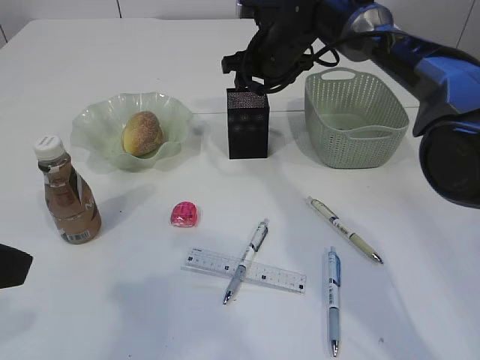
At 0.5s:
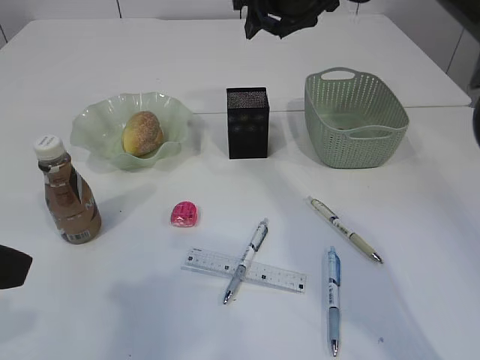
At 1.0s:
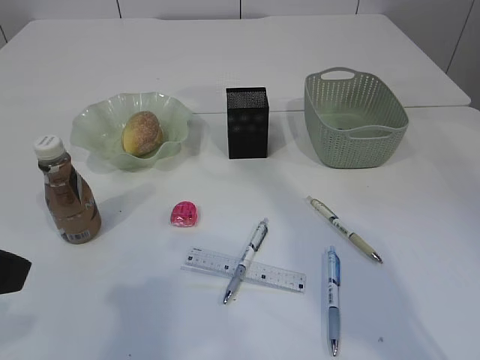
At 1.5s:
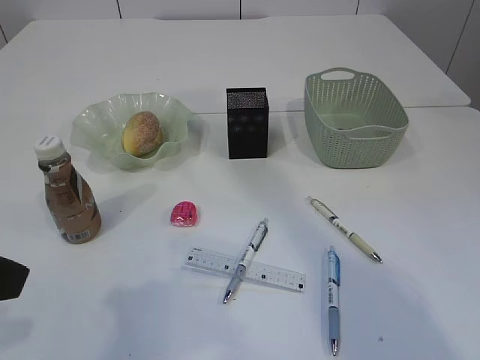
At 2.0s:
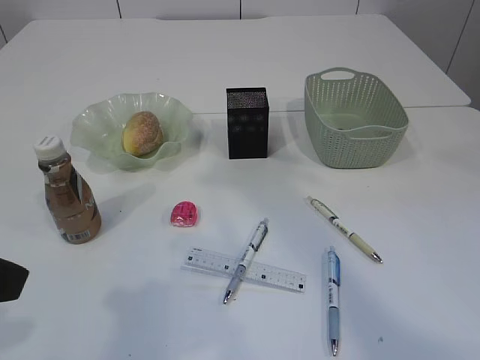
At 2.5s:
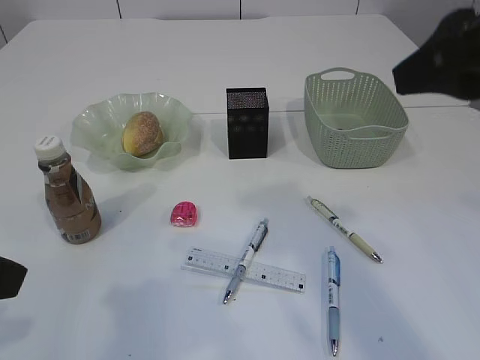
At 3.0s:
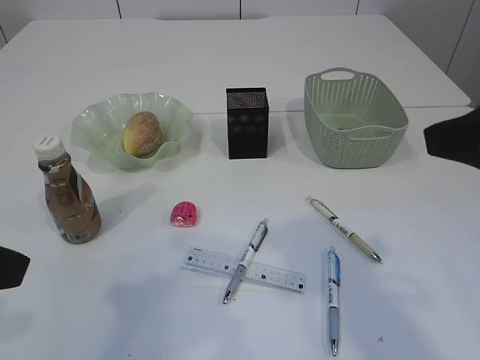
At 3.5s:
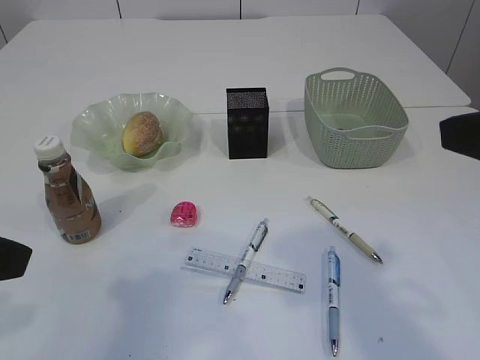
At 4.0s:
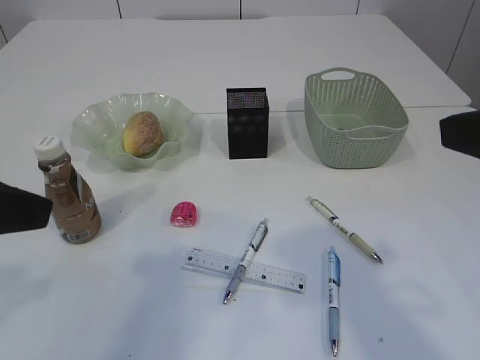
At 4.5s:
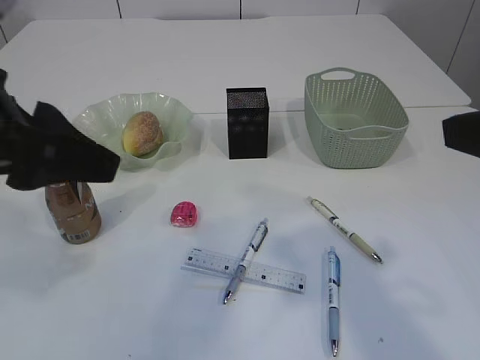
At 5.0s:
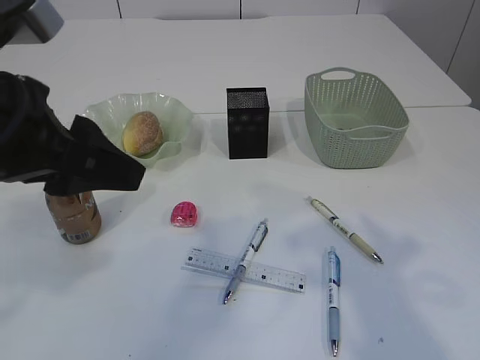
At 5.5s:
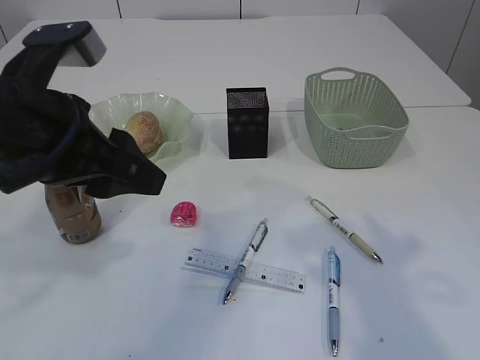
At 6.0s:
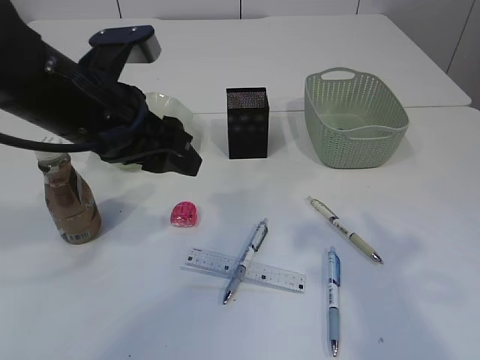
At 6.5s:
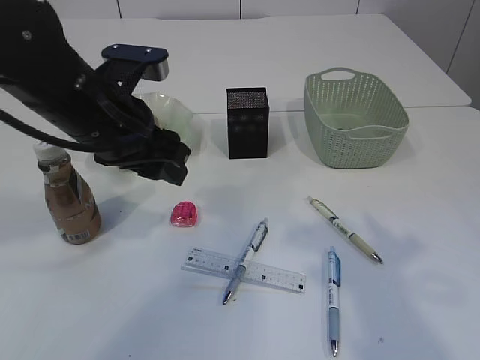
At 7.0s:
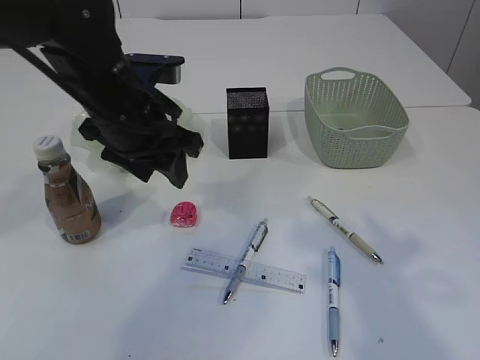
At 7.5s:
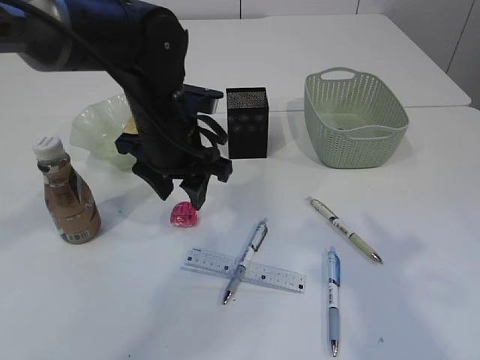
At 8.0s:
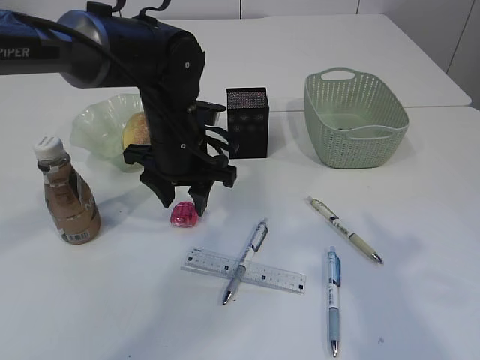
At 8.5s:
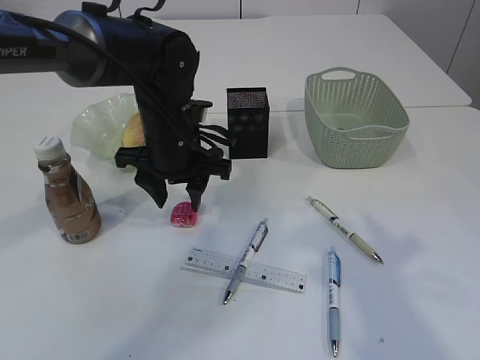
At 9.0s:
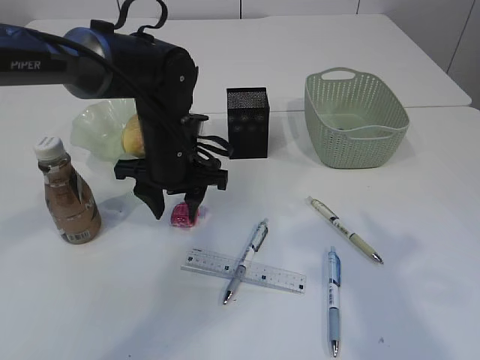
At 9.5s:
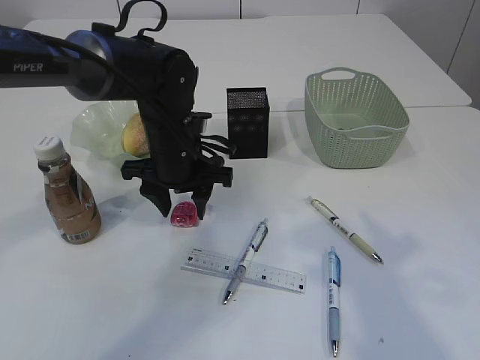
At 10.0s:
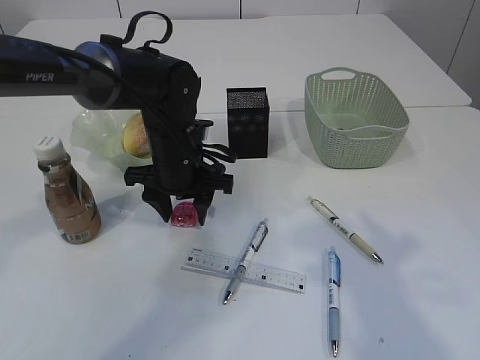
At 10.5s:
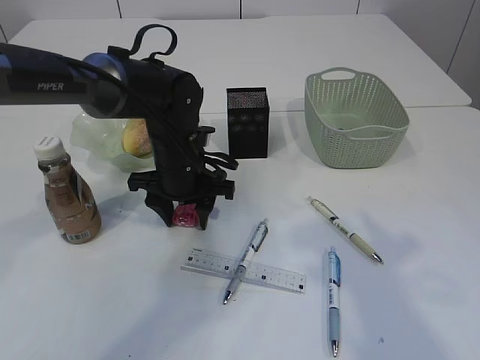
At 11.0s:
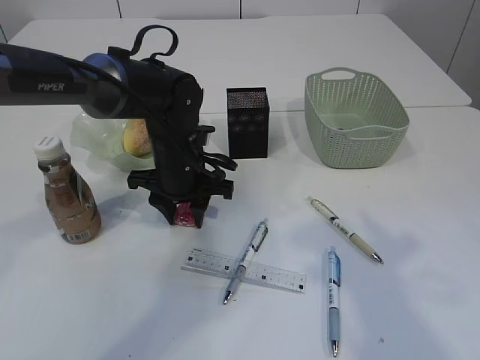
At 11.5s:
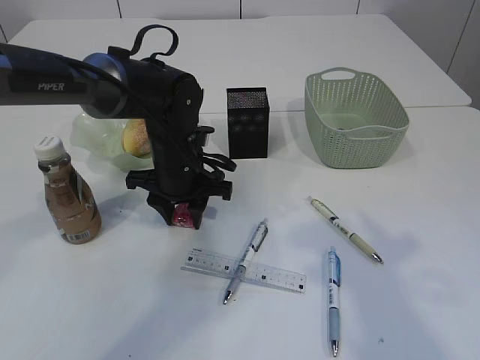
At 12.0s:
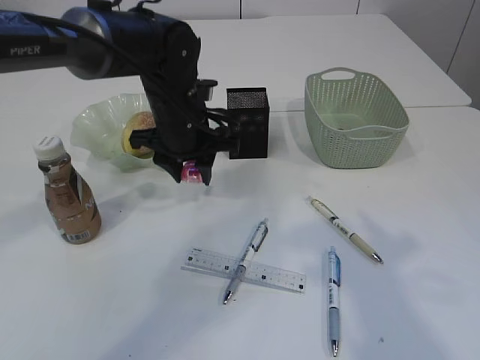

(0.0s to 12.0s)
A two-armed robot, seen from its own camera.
0.0s - 2.0s: The right gripper goes approximately 30 cm backward and upward.
2.0s - 4.0s: The right gripper is displaced backward and downward by some 20 cm.
4.0s - 6.0s: The left gripper goes about 15 cm forward and to the right.
6.0s - 8.0s: The left gripper moves forward, downward and to the right, about 15 cm.
8.0s - 10.0s: The grippers move only a little.
10.0s - 12.0s: The left gripper ends up roughly 5 cm from where it was.

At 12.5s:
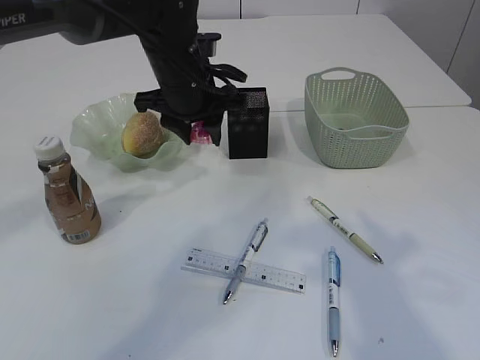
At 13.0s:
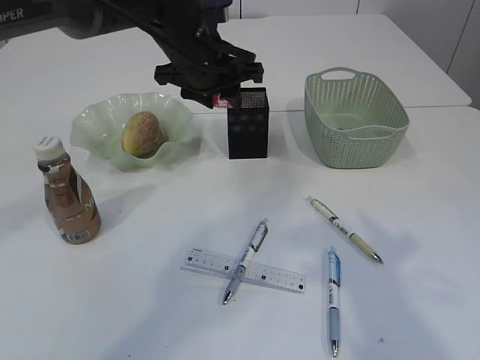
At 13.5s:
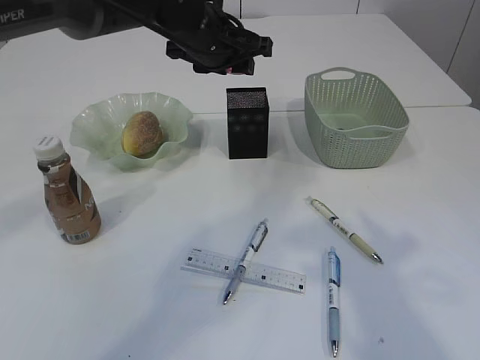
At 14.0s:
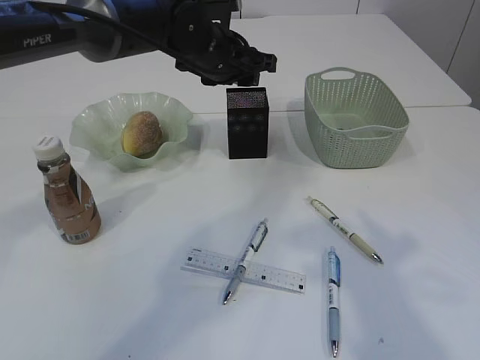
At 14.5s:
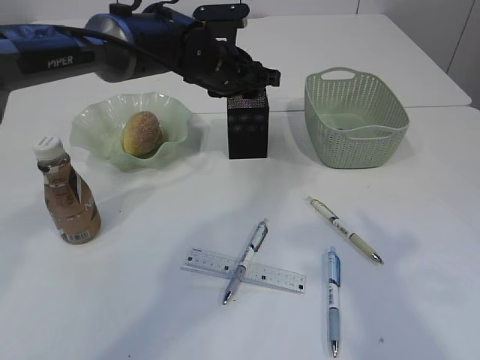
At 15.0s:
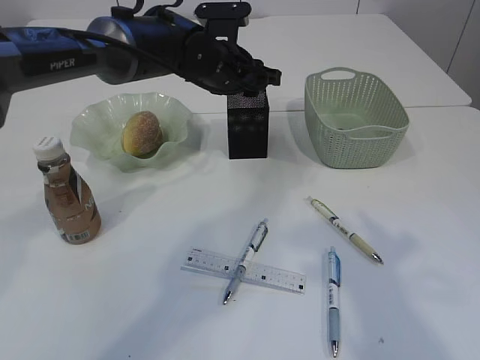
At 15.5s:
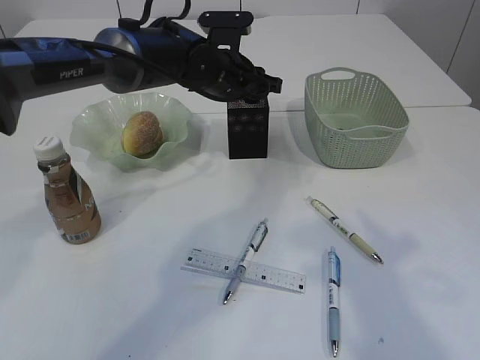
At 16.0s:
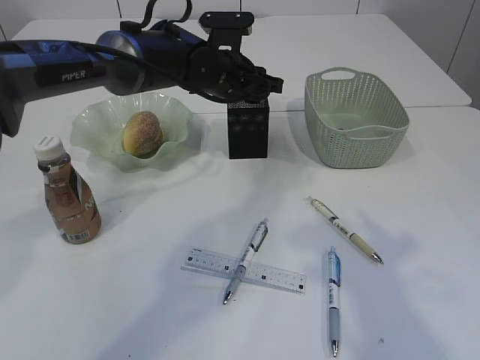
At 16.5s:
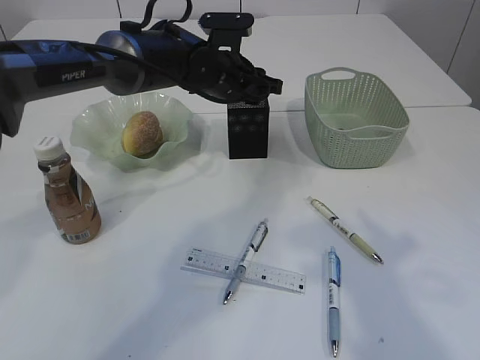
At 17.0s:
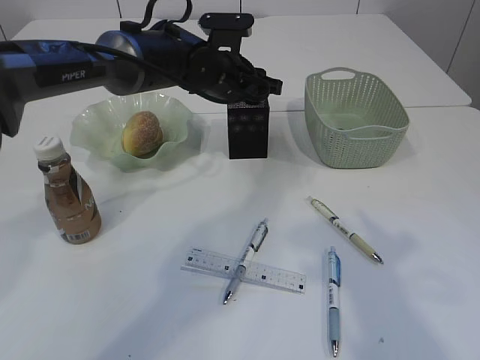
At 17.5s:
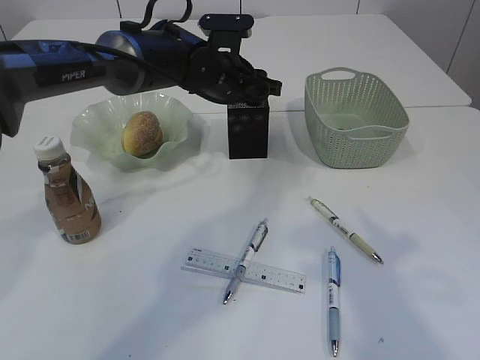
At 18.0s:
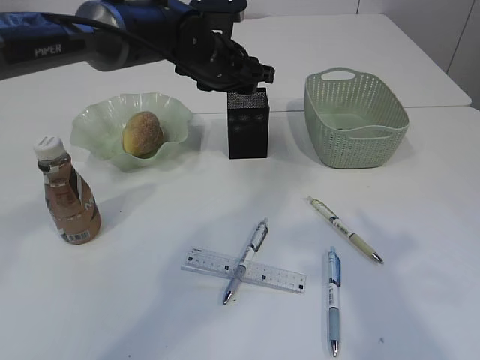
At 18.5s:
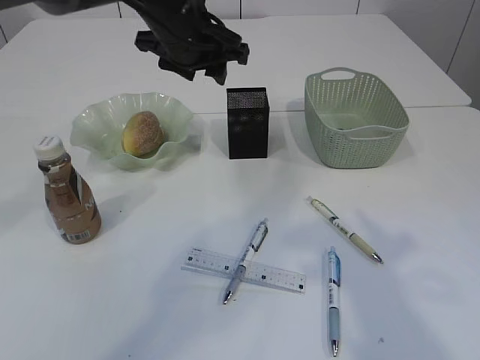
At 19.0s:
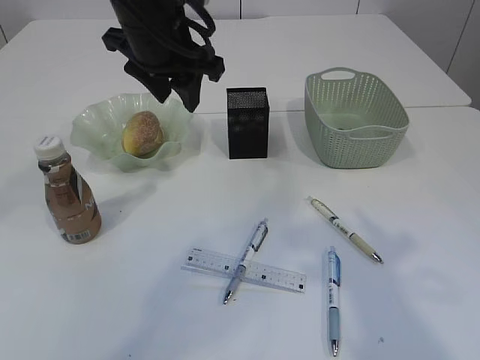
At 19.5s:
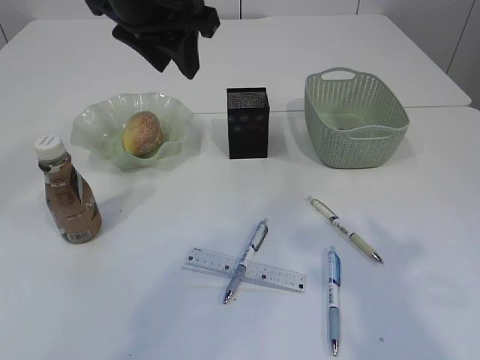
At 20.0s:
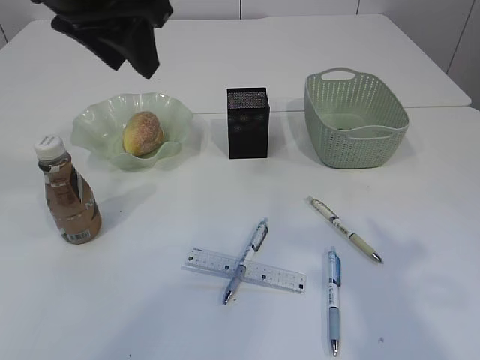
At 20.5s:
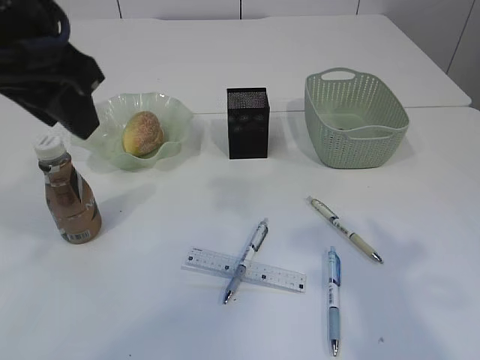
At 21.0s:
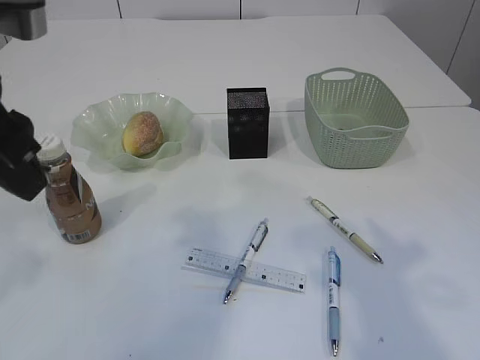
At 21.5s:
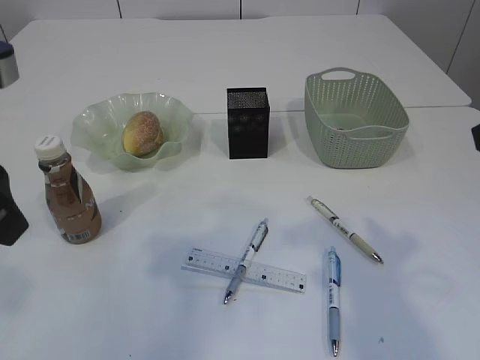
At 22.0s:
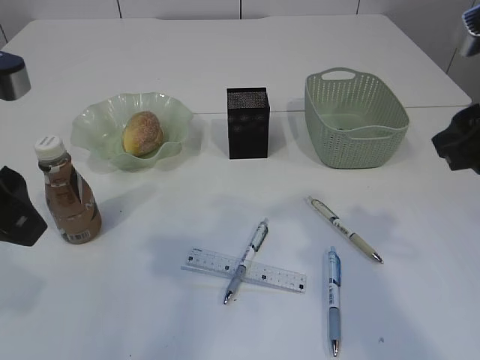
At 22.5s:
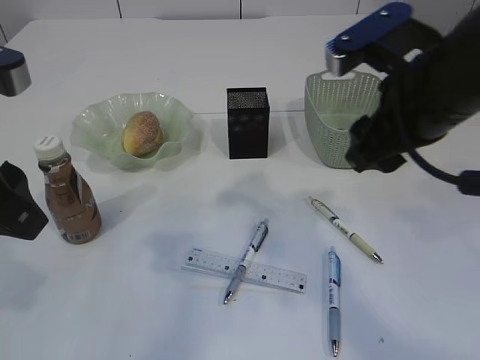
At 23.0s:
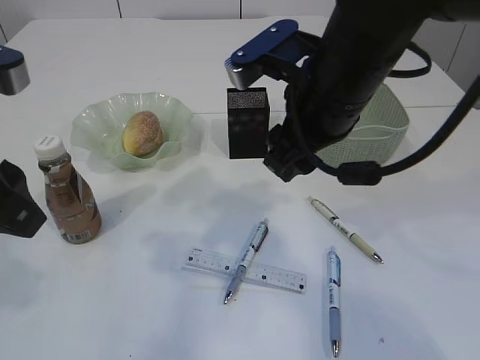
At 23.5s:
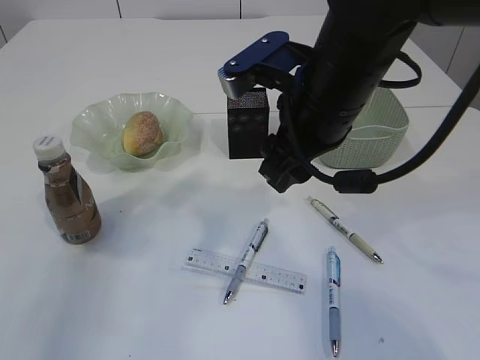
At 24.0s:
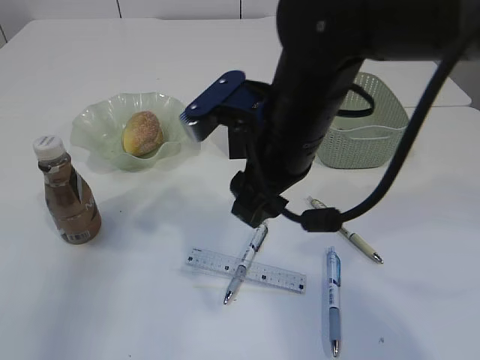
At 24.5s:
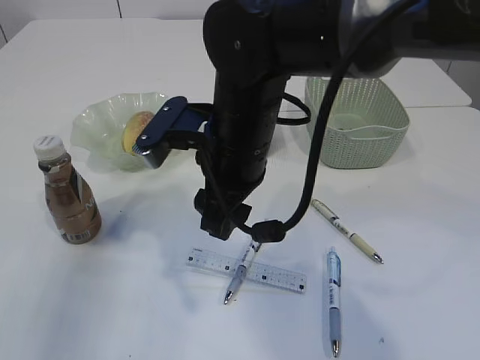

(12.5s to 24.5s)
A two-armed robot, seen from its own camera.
Step, 12.5s - 18.0s: Place the red pencil sharpener into the pen holder.
12.5s - 14.5s: The left gripper moves forward, approximately 5 cm.
14.5s - 16.5s: There are only small adjustments of the grippers.
16.5s - 18.5s: The left gripper is displaced upward by roughly 10 cm.
18.5s - 20.5s: The left gripper shifts some 20 cm backward, to the left and upward.
20.5s - 22.5s: The left gripper moves backward and downward, approximately 10 cm, while the right gripper goes about 15 cm forward and to the left.
22.5s - 24.5s: The right gripper goes roughly 15 cm to the left. Meanwhile the left gripper heads to the left, covering about 10 cm.

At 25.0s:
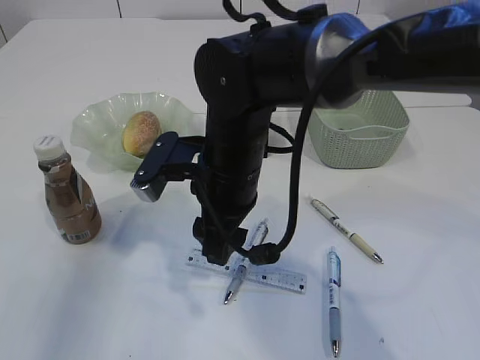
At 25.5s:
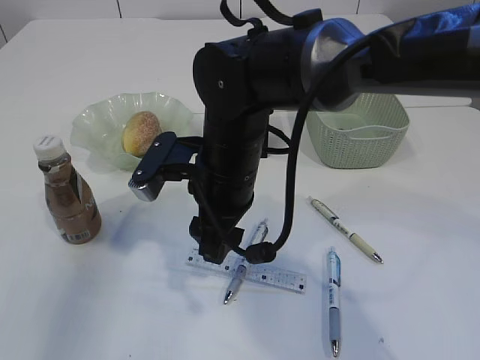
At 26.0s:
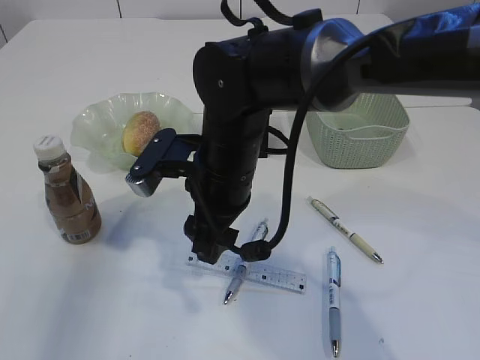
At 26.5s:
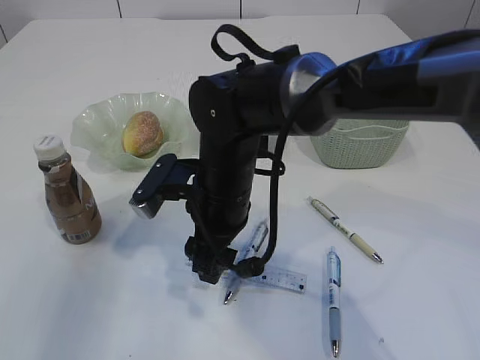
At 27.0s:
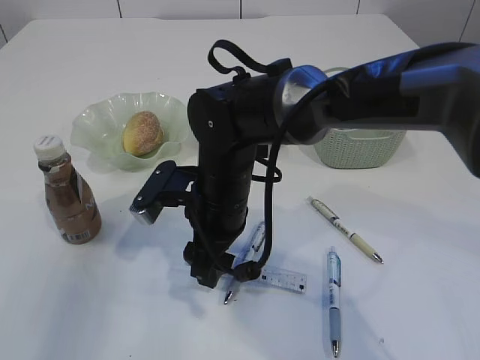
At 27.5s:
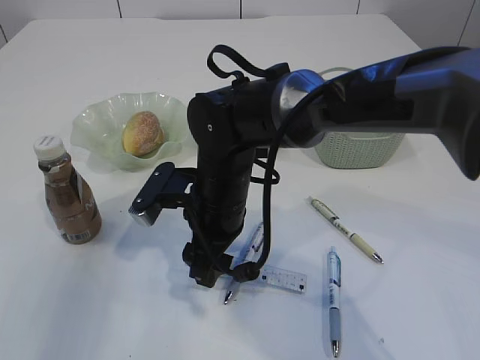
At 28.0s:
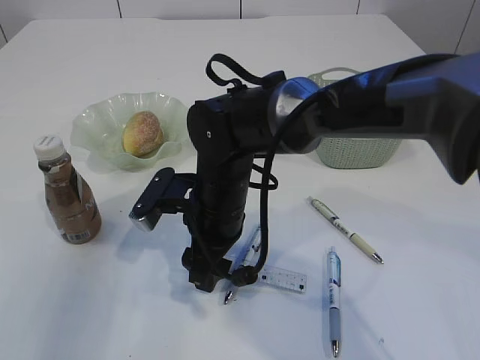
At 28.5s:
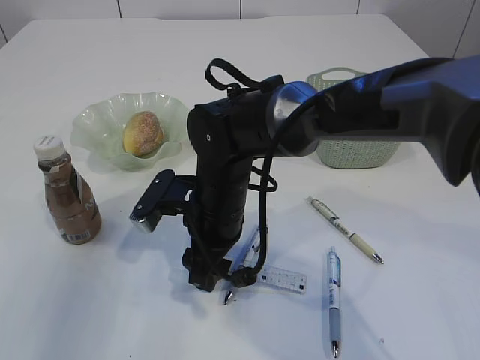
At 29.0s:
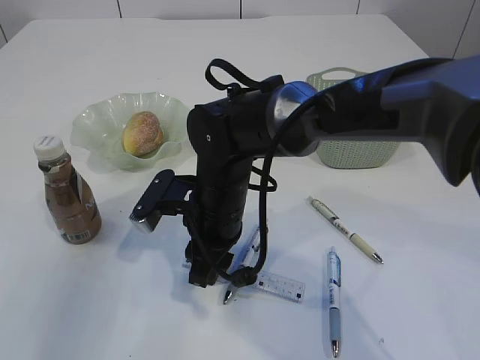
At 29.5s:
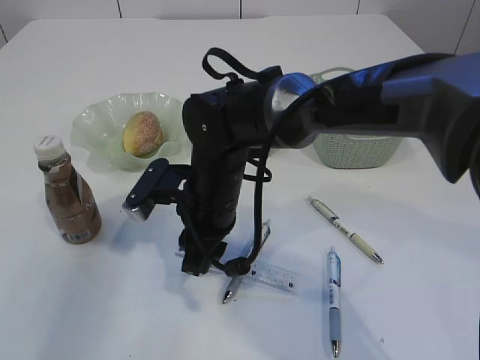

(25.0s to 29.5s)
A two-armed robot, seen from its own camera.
25.0s - 27.0s: The right gripper moves approximately 5 cm.
27.0s - 29.5s: The right gripper closes up.
